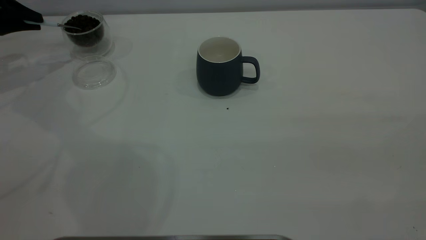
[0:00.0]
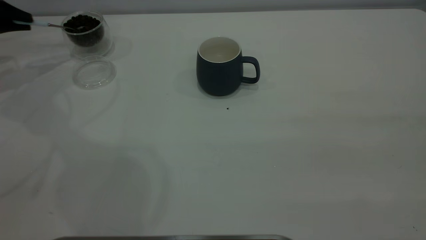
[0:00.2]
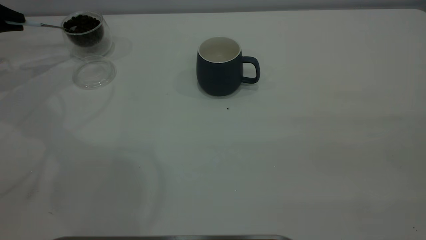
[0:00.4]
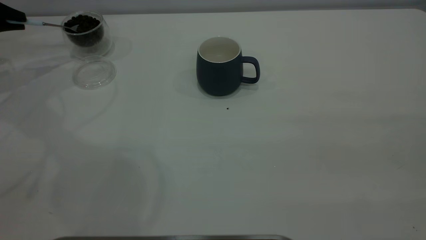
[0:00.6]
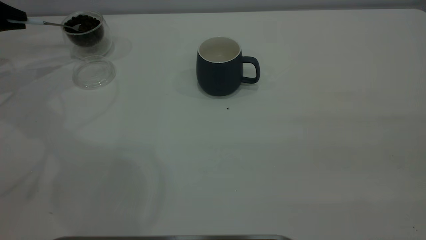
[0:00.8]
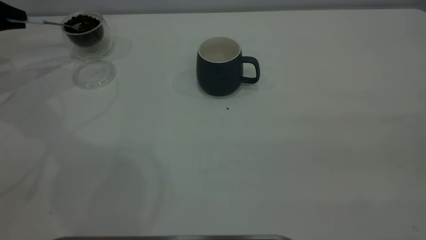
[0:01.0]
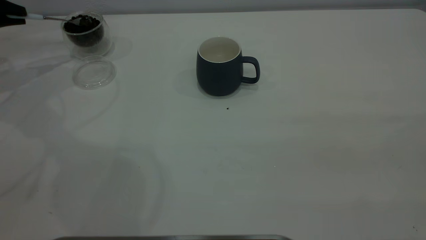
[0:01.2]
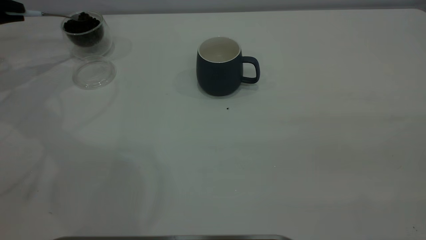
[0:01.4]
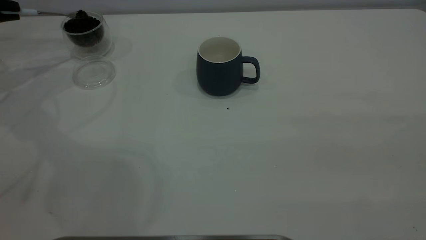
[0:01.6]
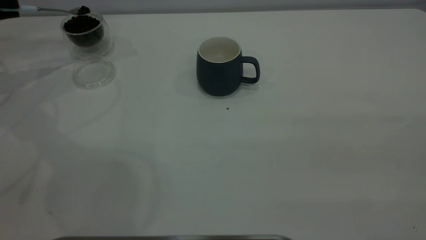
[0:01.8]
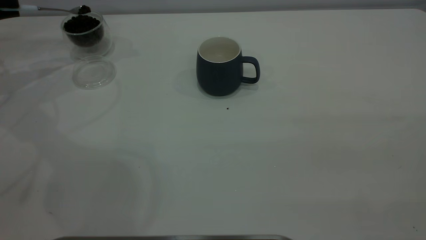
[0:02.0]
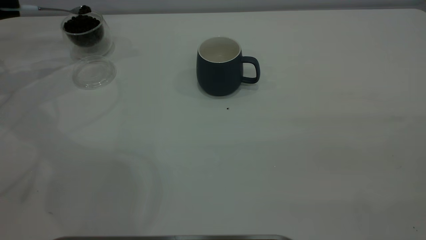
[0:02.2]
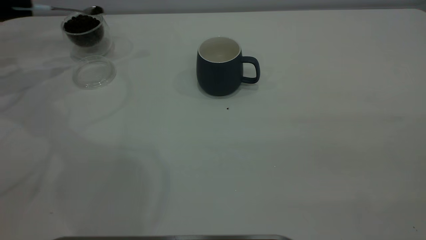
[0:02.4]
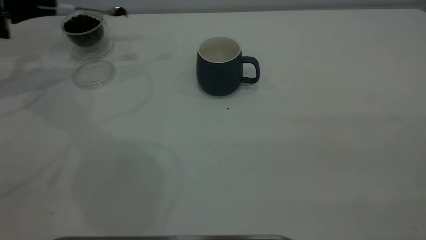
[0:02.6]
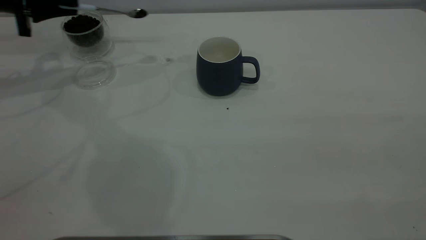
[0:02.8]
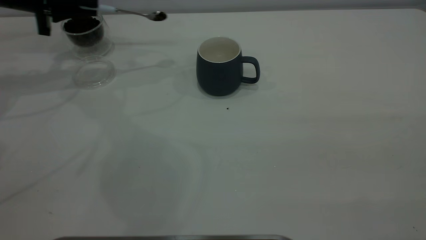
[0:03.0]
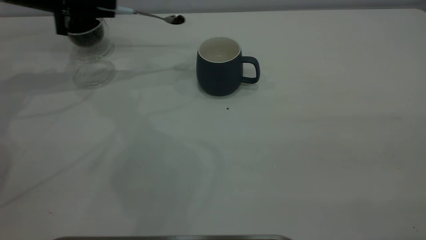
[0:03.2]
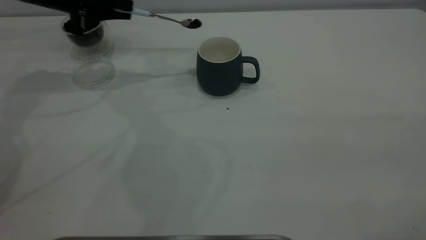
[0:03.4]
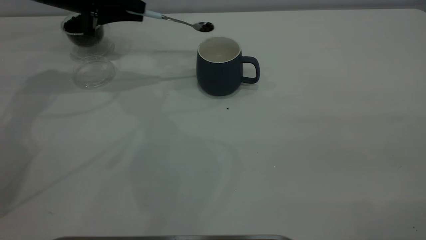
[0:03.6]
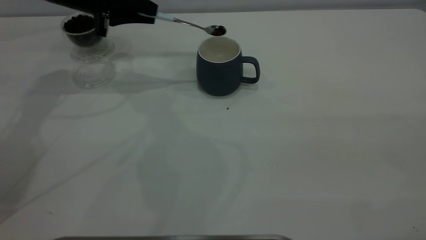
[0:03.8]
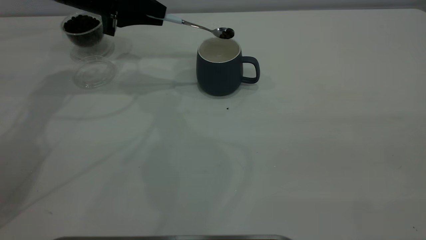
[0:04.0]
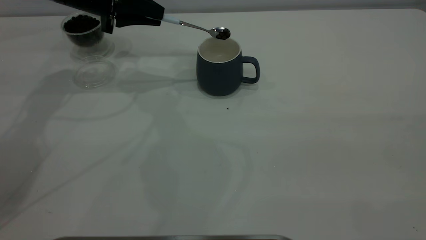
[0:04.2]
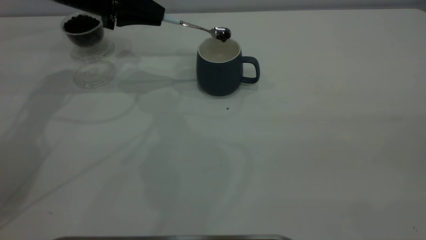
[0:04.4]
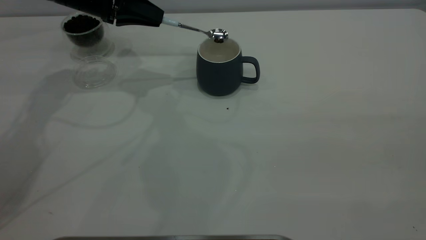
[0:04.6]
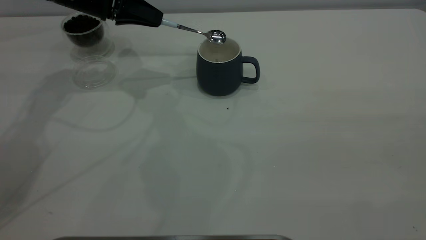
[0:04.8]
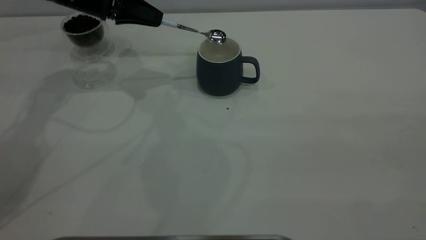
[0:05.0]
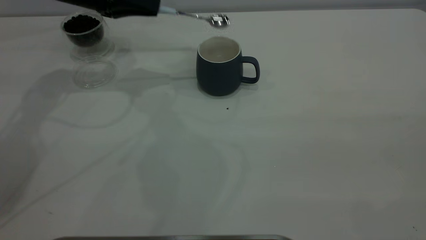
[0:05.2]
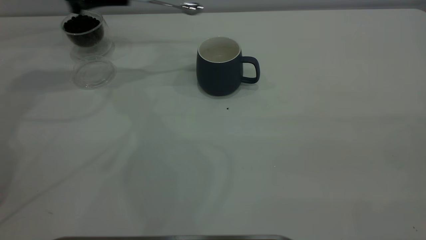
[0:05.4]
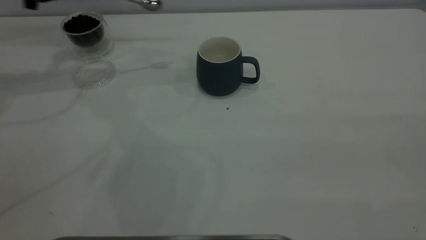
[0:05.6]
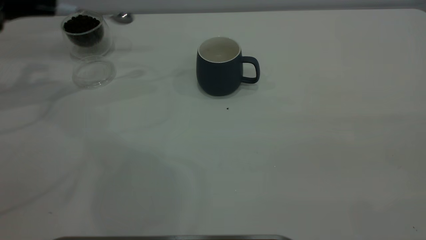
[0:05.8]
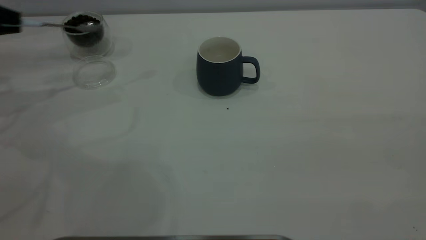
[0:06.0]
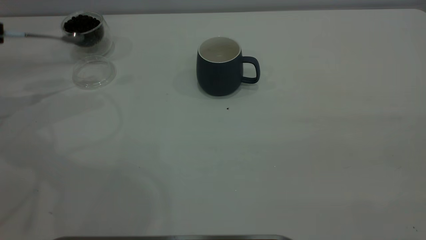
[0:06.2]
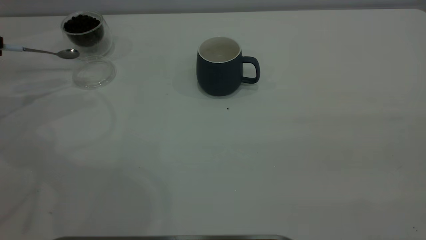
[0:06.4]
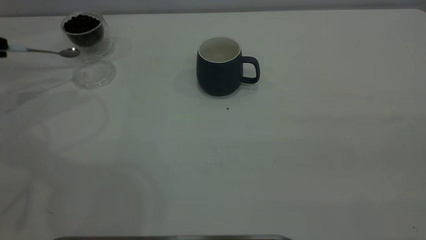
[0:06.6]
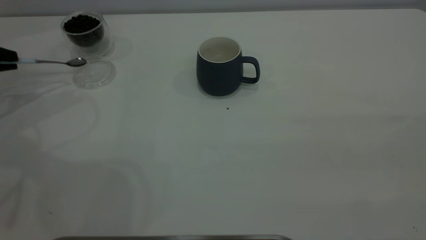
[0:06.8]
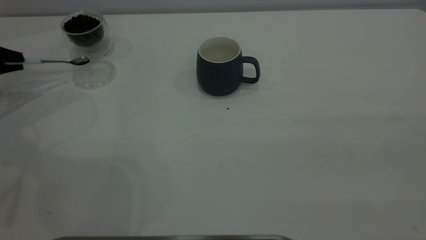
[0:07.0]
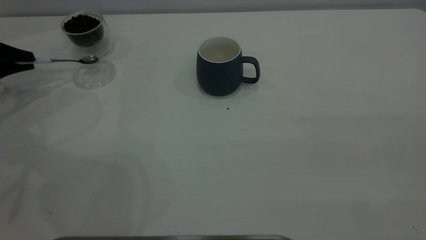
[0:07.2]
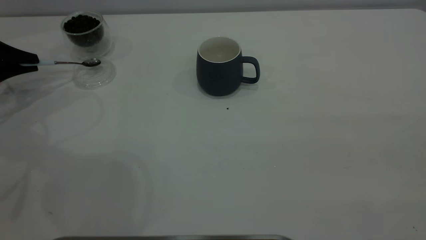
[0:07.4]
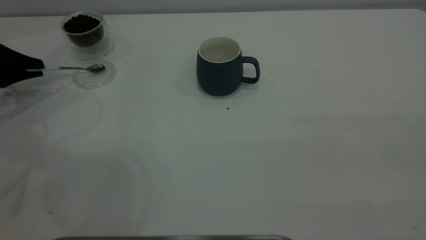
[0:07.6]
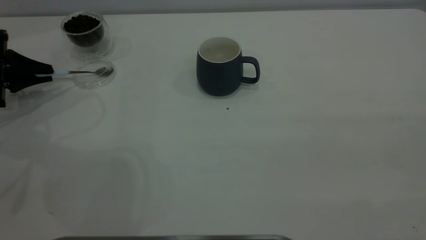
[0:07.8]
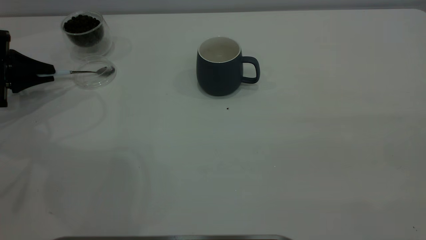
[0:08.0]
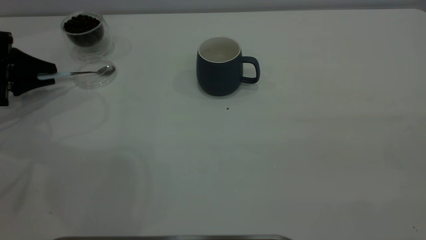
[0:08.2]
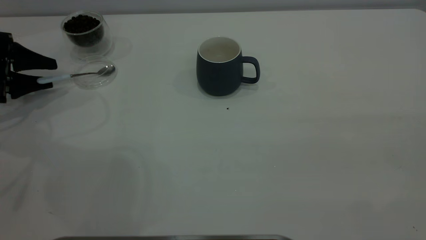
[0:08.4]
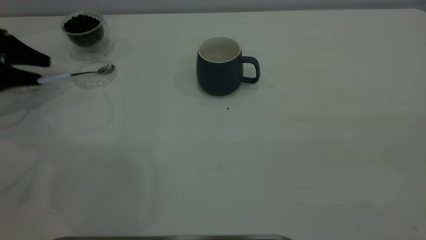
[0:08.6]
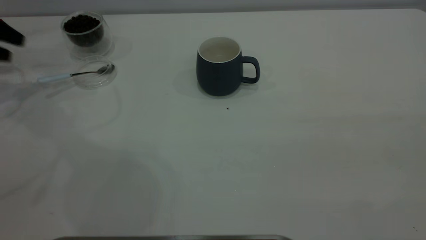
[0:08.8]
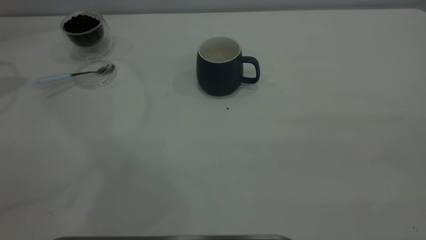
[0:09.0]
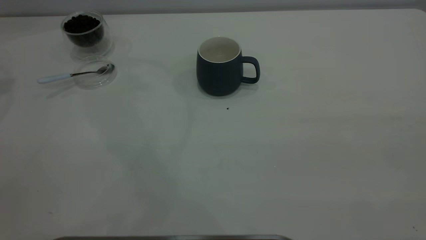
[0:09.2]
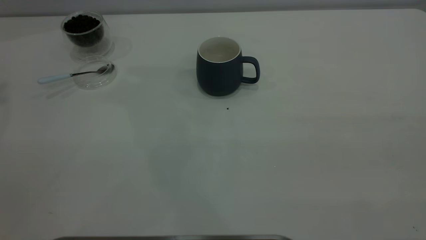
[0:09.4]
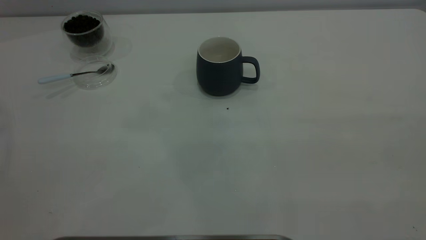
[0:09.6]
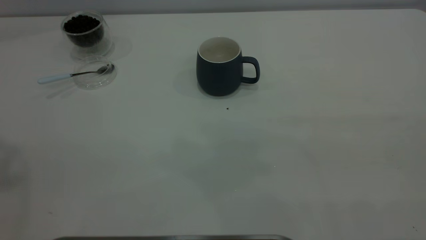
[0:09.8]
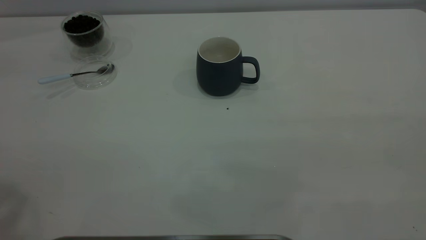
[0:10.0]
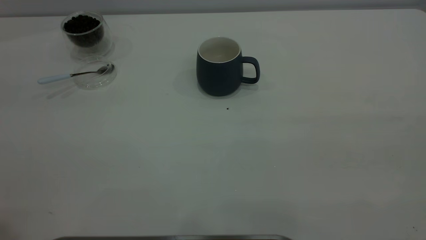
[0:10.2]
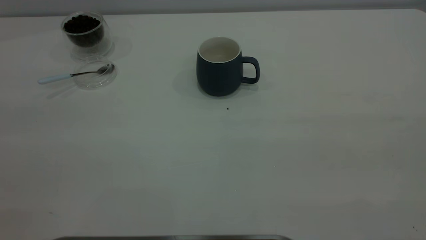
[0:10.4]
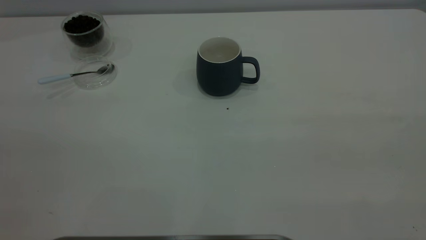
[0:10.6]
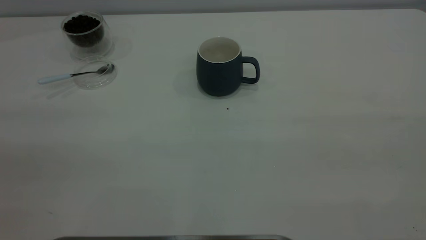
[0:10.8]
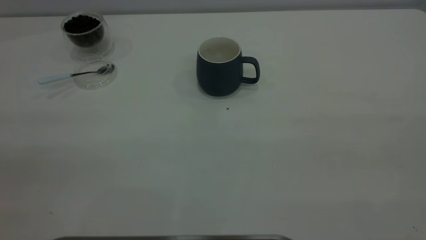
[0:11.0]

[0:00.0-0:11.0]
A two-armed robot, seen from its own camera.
Task of the whole recording: the right gripper place the grey cup in the center of the table, the left gripper take the blue spoon from the cup lid and scoop out the coffee beans from the coffee cup and put them into the grey cup, the left gripper put the spoon back into the cup lid.
Step, 0:00.0 to 0:05.0: Scoop a spoonful of beans into the cup.
Step, 0:05.4 to 0:08.8: Place the spoon back in its original place.
0:01.6 to 0:03.2: The left gripper shifts approximately 15 cm to the right.
0:03.2 to 0:04.8: The left gripper heads to the right, covering approximately 5 cm.
0:04.8 to 0:06.2: The left gripper goes approximately 25 cm to the left and backward.
0:06.2 to 0:07.8: The left gripper travels downward by approximately 10 cm.
0:07.8 to 0:09.4: The left gripper shifts approximately 40 cm upward, and opens.

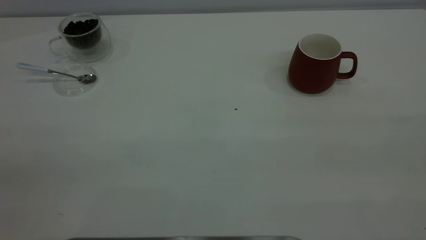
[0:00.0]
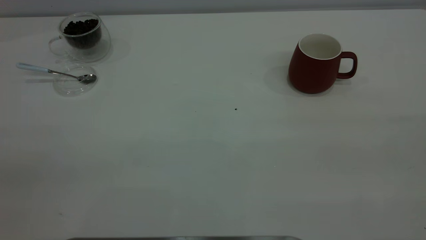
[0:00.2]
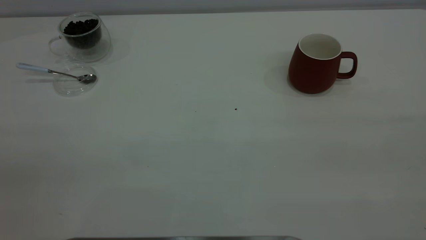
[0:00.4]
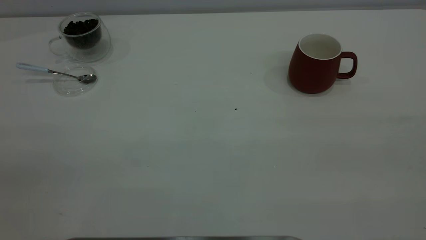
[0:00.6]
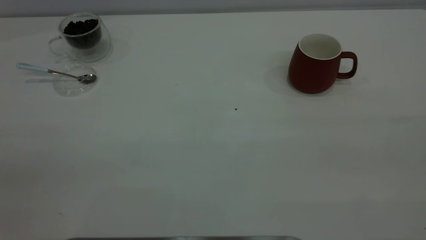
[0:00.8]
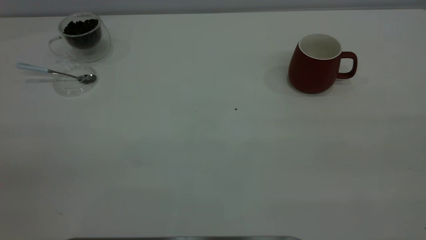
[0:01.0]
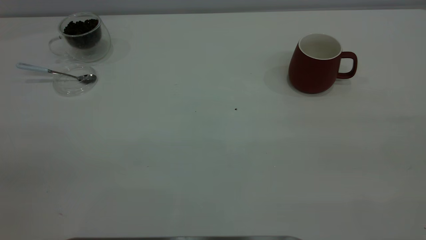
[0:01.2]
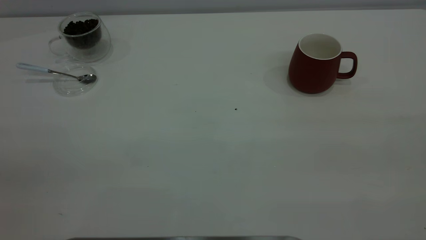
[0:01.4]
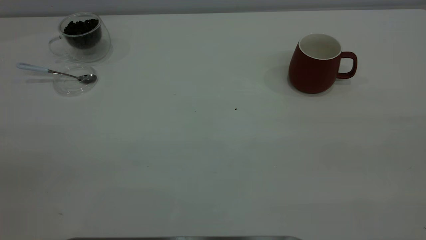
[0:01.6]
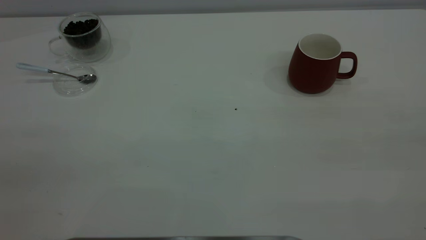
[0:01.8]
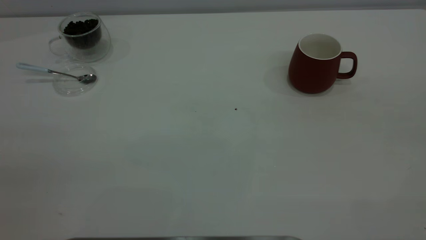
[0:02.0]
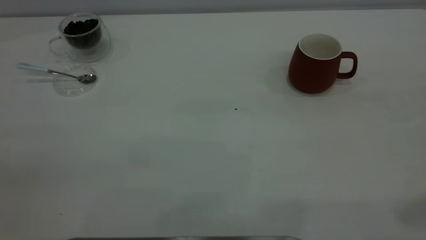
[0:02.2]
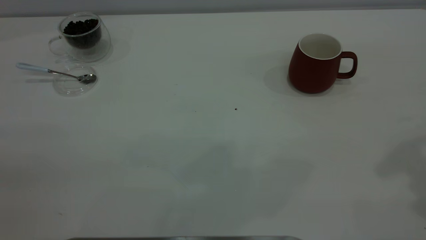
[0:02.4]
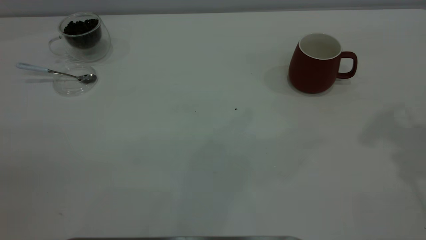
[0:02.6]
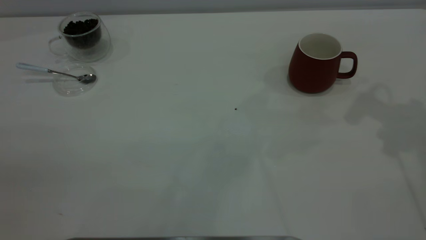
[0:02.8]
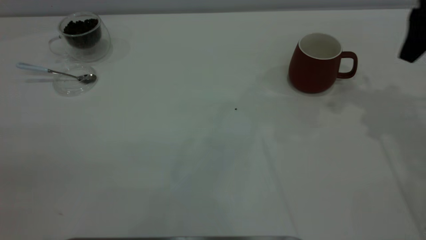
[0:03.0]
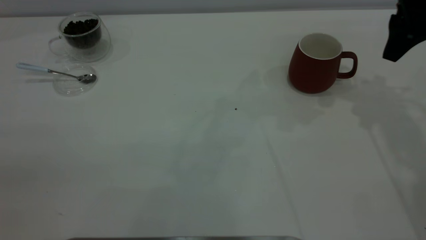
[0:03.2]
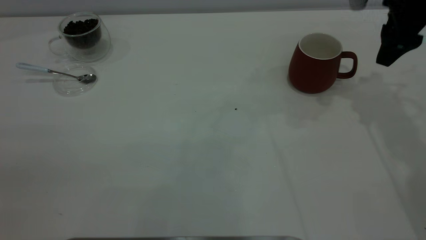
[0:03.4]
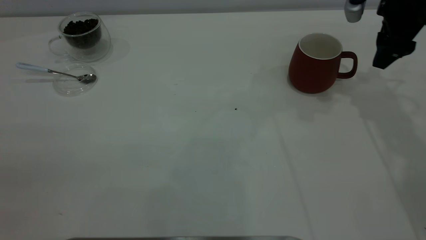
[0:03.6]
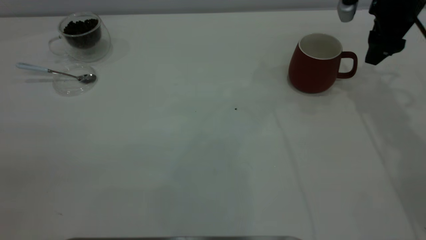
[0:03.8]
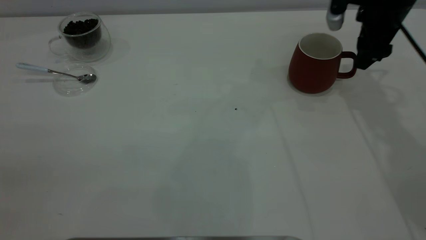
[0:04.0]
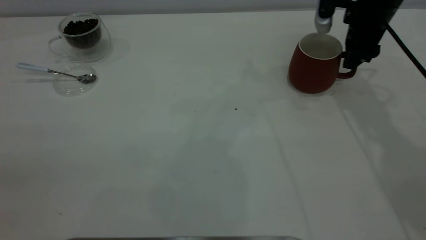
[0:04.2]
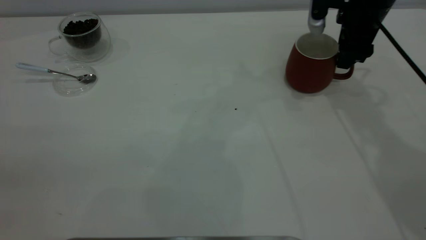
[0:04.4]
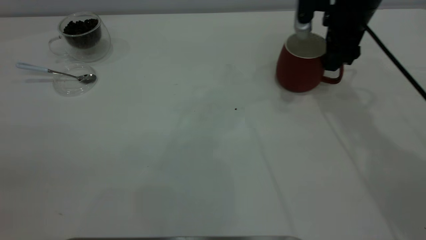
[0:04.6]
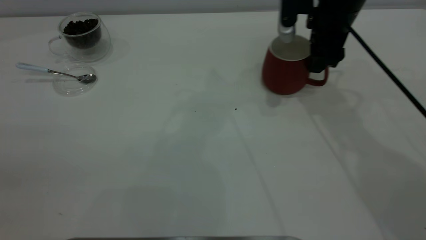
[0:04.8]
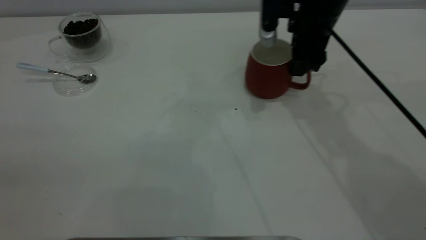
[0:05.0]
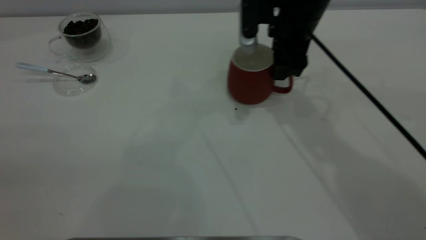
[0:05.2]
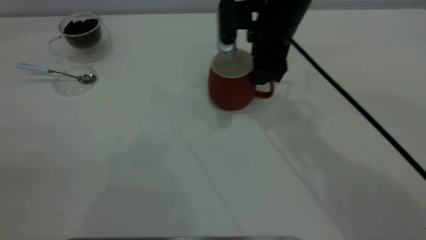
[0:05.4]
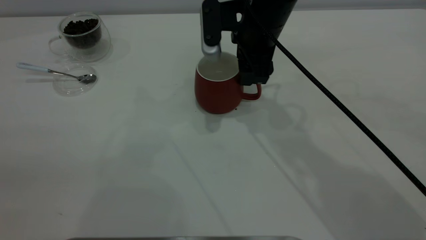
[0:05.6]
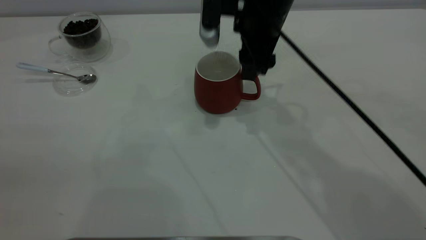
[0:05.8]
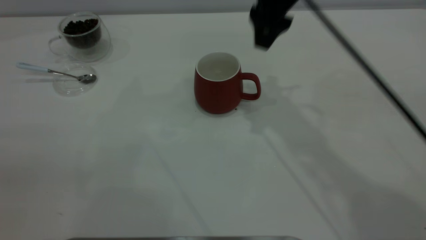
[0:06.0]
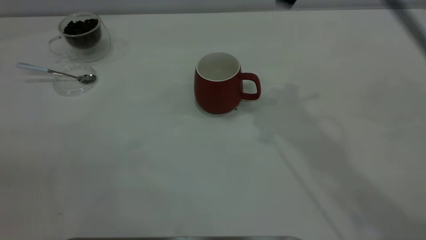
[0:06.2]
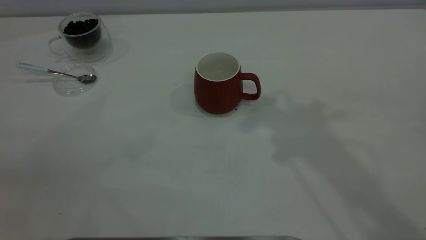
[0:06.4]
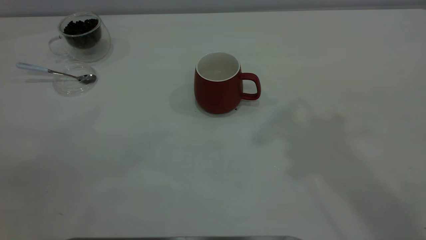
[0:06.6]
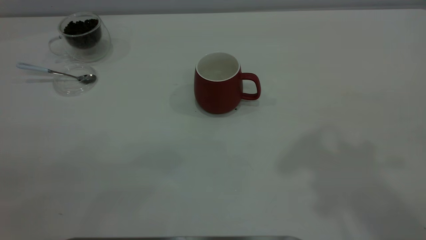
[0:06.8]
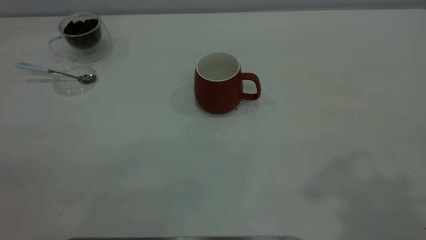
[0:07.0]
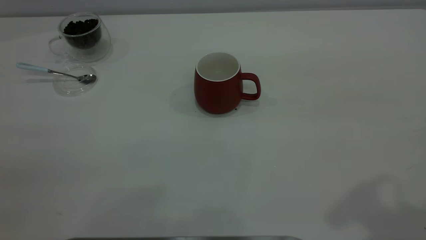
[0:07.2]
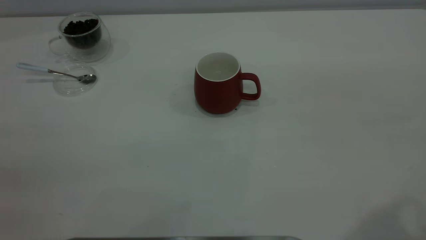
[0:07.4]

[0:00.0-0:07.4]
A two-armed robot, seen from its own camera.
Task of the whole recording: the right gripper place the red cup in the center of the table, the left gripper take the blue spoon from the cup lid and scoop out the coffee beans from the coffee cup and put them into the red cup, the left gripper put the spoon back into the cup lid.
Step, 0:00.0 to 0:05.8: Move the cup to the center of view.
0:00.0 to 0:01.4: Neither gripper changes place.
0:01.4 to 0:03.0: The right gripper heads forward, covering approximately 40 cm.
0:03.0 to 0:04.4: The right gripper travels downward, to the left and forward by roughly 10 cm.
0:04.4 to 0:06.0: The right gripper moves to the left, upward and backward, roughly 20 cm.
0:06.0 to 0:07.4: The right gripper heads backward, to the right and upward, covering approximately 35 cm.
